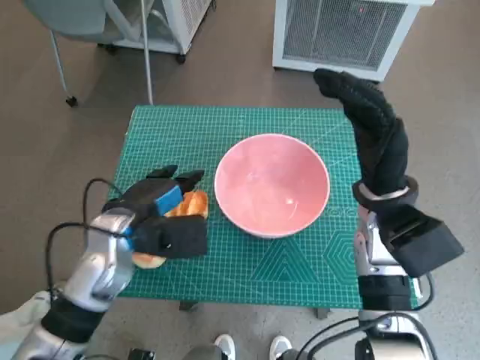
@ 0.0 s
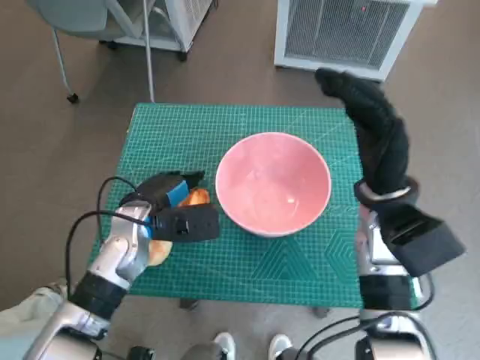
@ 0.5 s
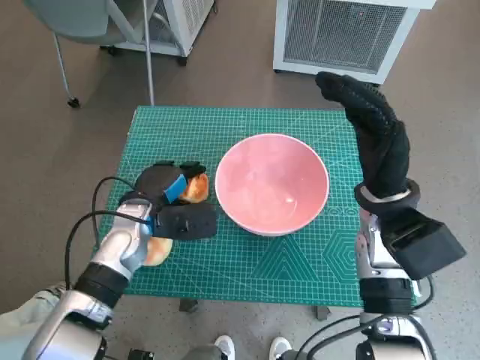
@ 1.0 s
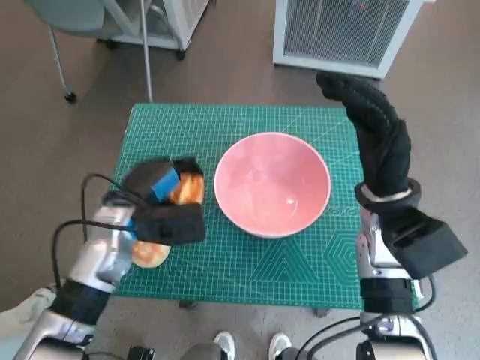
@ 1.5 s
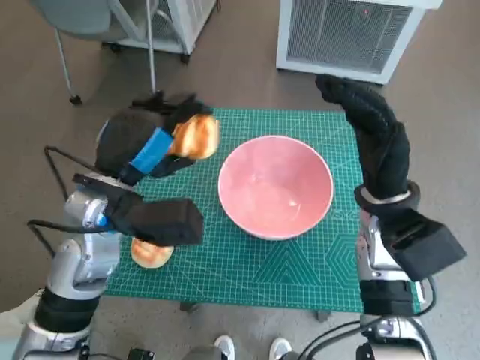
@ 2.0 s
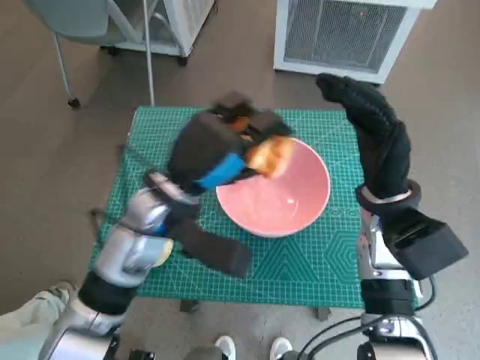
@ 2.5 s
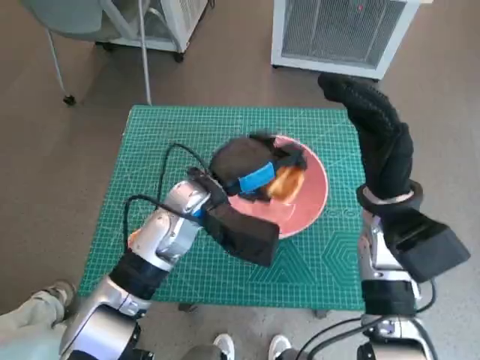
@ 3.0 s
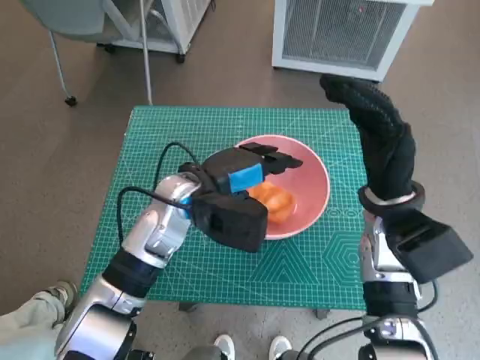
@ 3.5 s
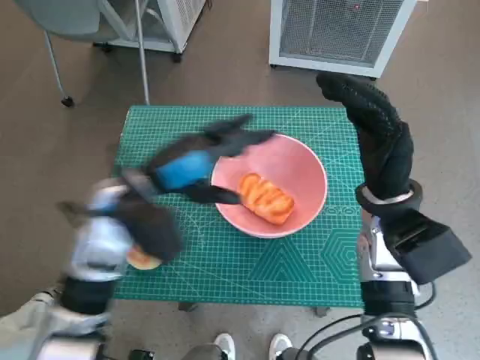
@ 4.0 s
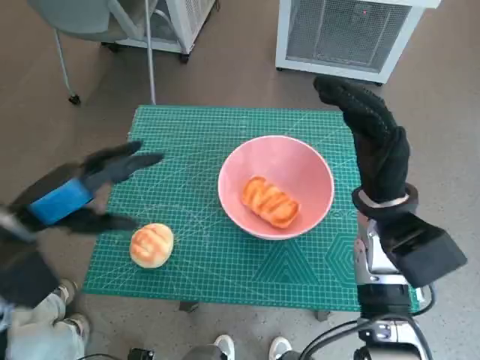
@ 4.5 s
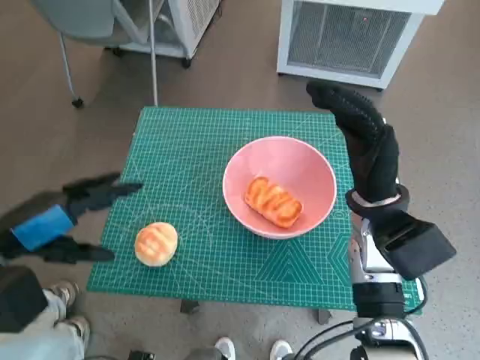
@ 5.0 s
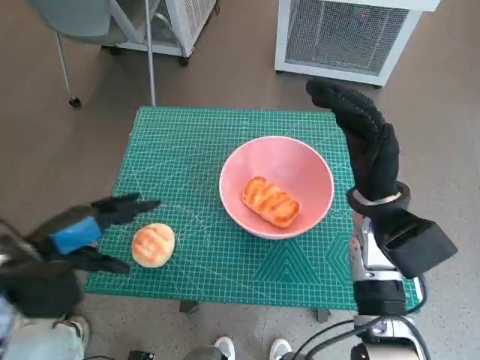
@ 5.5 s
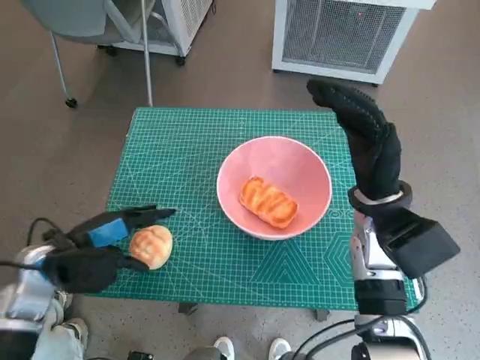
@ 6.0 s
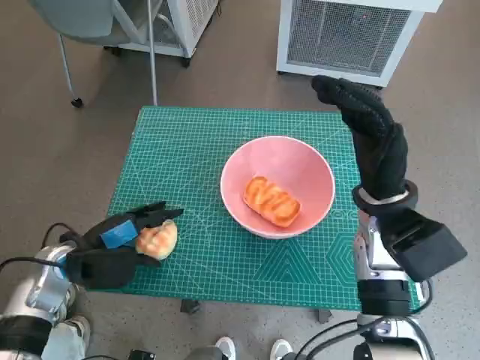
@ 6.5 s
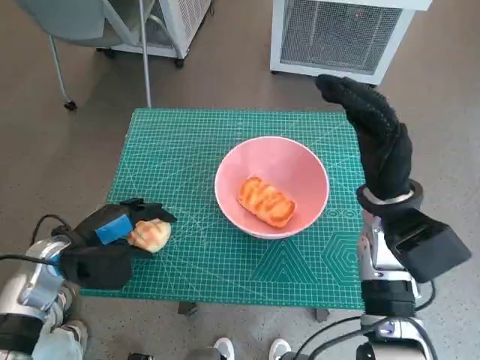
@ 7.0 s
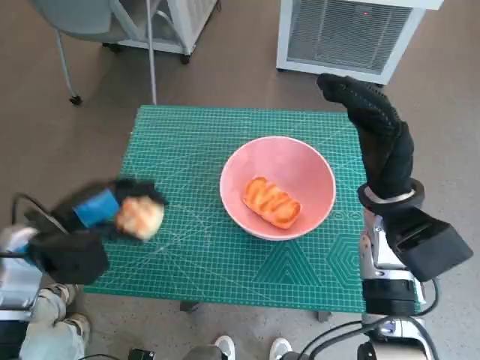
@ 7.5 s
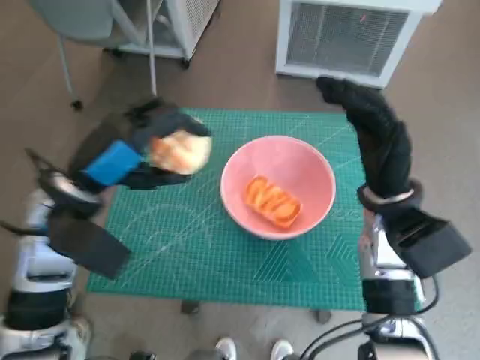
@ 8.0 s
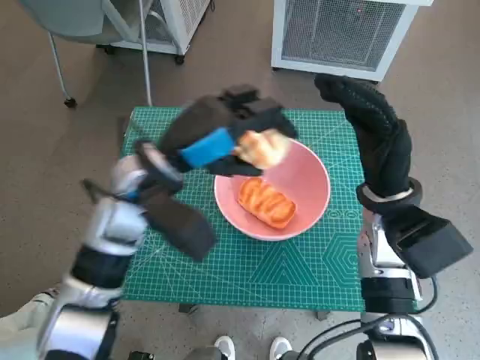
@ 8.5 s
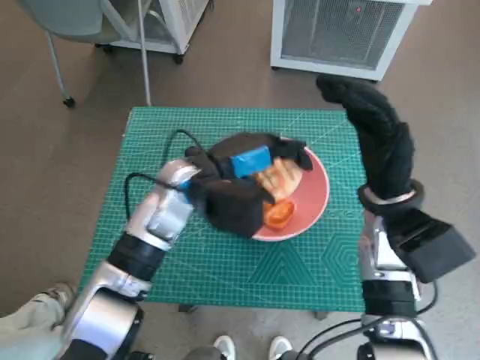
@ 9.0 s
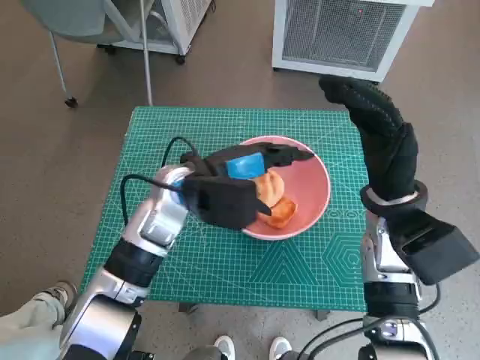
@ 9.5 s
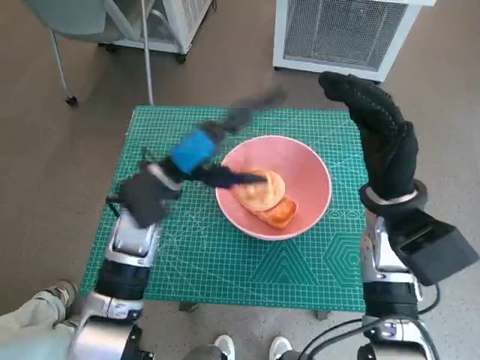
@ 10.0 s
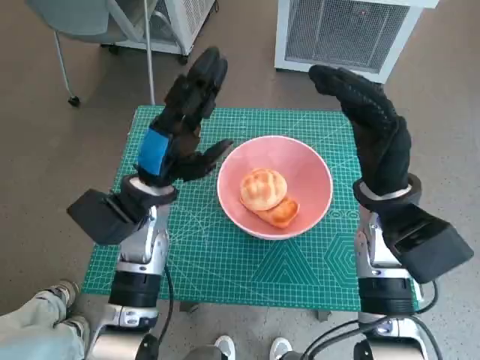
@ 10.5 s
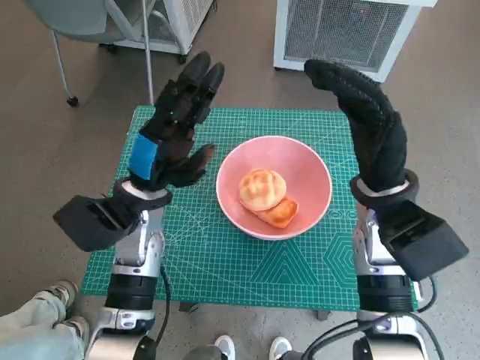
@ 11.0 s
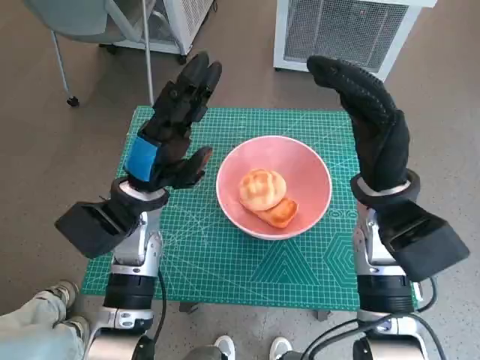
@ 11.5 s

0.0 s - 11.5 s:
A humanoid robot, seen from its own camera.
Task of the whole recording: Push the bowl to the center of the table and put the bread into the bowl.
Step, 1.0 s - 4.0 s: Place the long bread in pink bowl with left hand.
Step, 4.5 s - 6.0 s: Grasp the round bread with left hand.
Step, 6.5 s - 9.0 s: Place the round bread in pink bowl with left hand.
0.0 s - 2.0 s: The left hand travels upward by roughly 5 cm.
2.0 s - 4.0 s: The left hand reaches roughly 10 cm to the right, then returns.
4.0 s - 6.0 s: The left hand travels to the left, downward and backward by about 15 cm.
7.5 s - 9.5 s: The left hand moves to the right and forward, roughly 20 cm.
9.5 s - 11.5 s: The left hand shifts approximately 5 cm to the left.
